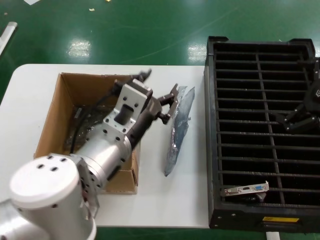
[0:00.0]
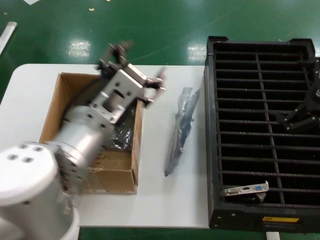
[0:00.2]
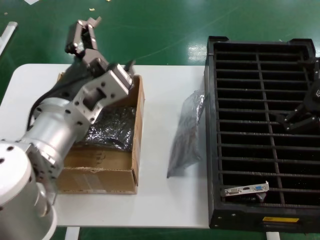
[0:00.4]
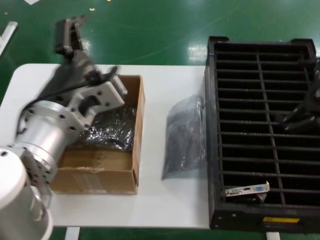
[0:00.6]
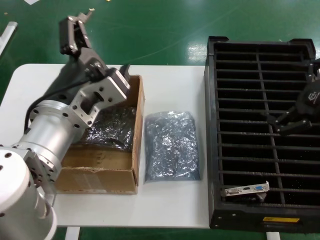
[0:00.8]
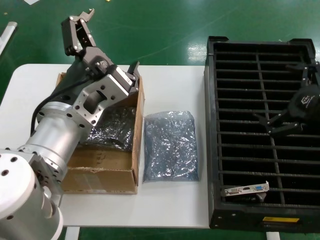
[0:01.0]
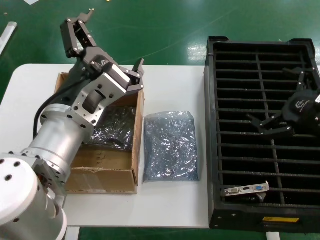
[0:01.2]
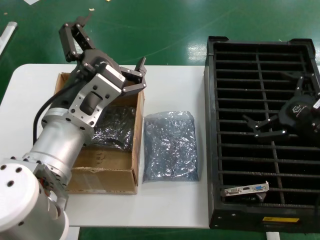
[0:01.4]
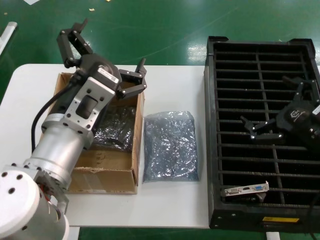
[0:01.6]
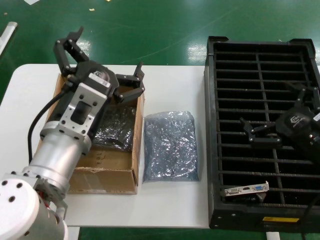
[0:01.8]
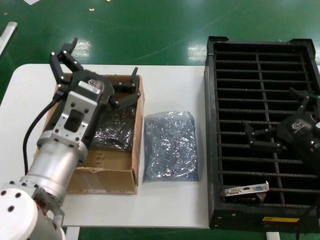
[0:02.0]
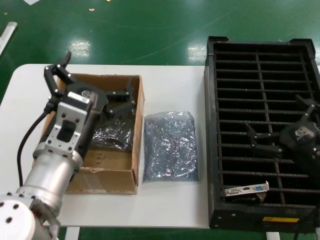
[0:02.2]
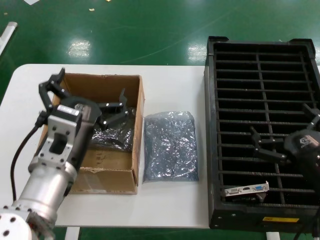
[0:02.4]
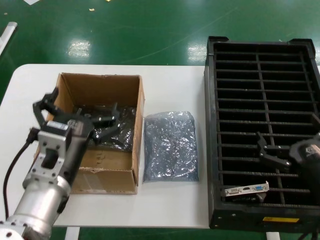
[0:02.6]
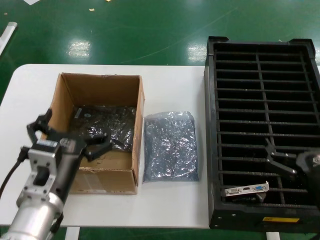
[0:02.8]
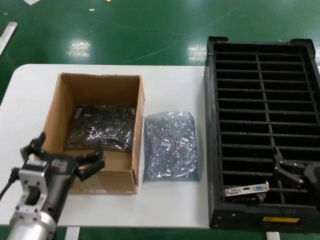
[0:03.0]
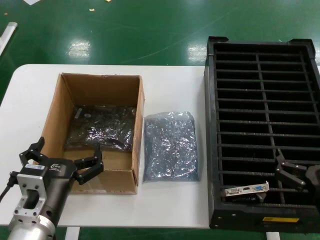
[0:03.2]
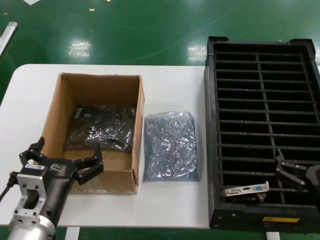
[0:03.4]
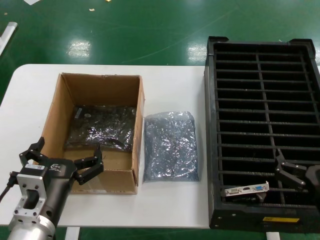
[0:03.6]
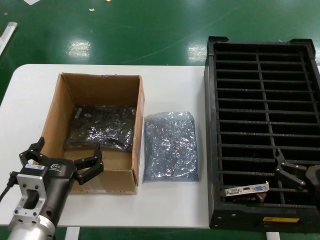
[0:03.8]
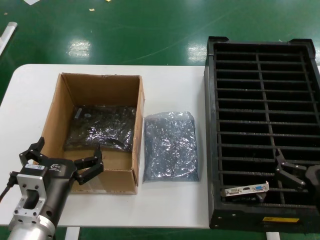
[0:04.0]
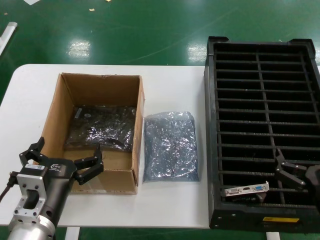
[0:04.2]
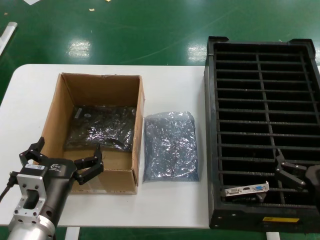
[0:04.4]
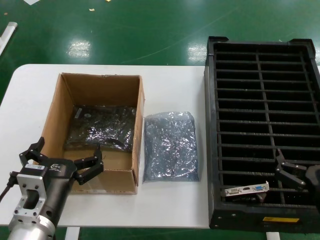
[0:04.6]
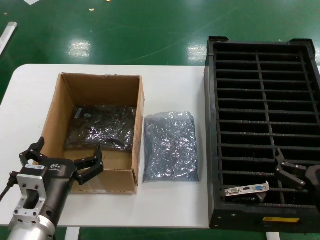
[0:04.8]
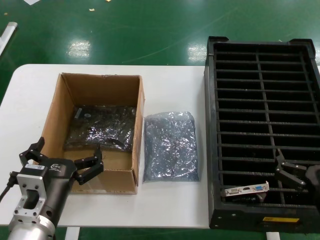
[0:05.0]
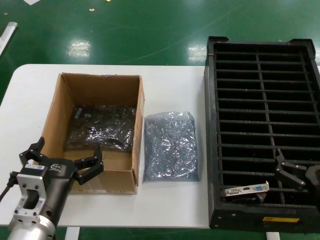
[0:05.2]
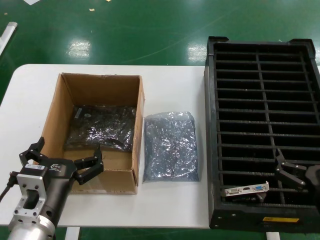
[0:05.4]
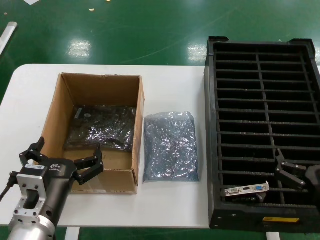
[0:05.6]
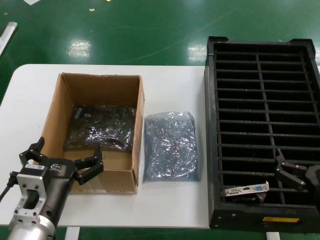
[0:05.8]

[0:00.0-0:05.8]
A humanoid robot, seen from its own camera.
Task of the whole recording: take out graphics card from box remove packaging put into black container.
Step, 0.0 to 2.8 s: Place the down the bag.
0.0 to 1.4 s: The right hand moves downward, approximately 5 cm.
1.4 to 2.8 s: The right hand is displaced downward and backward by about 15 cm, while the left hand travels downward and to the left by approximately 15 cm.
2.8 to 4.4 s: The hands stay close to where they were, moving slightly.
4.4 to 5.8 s: The two hands keep their place.

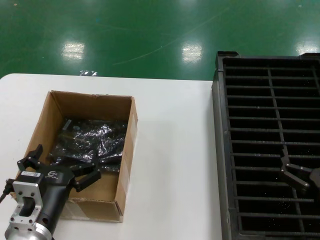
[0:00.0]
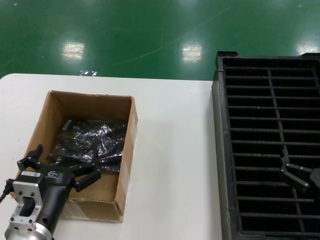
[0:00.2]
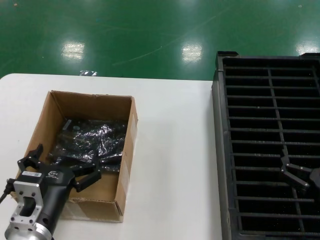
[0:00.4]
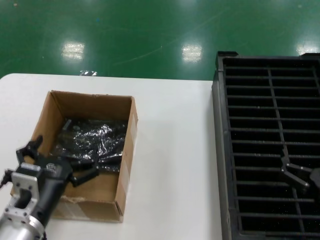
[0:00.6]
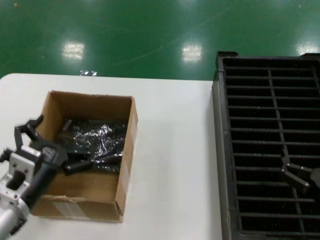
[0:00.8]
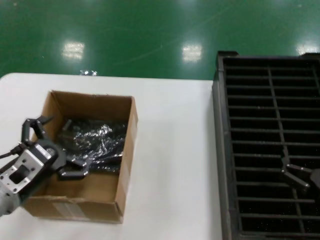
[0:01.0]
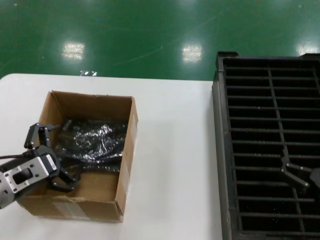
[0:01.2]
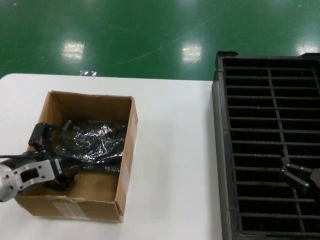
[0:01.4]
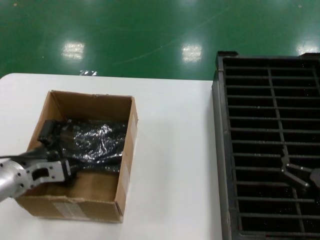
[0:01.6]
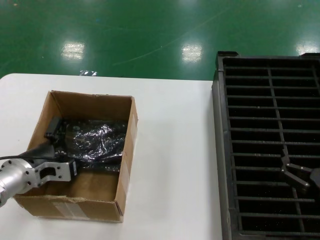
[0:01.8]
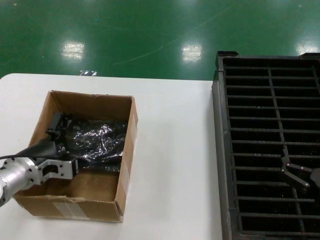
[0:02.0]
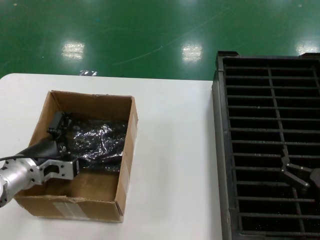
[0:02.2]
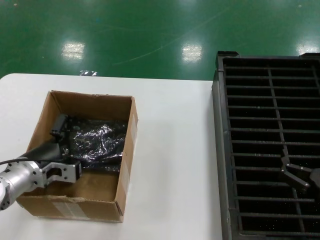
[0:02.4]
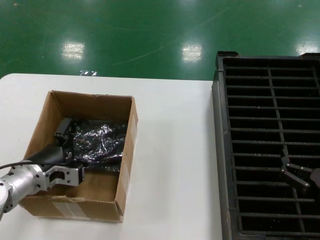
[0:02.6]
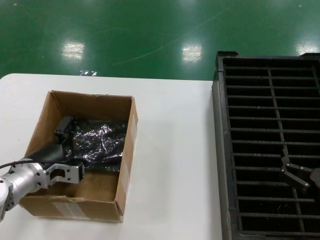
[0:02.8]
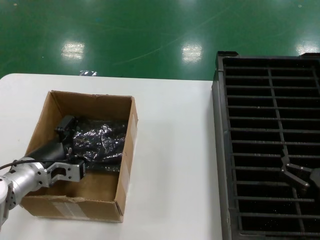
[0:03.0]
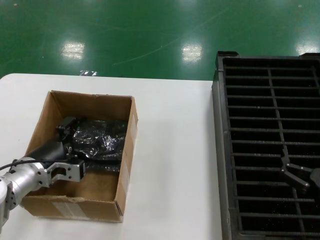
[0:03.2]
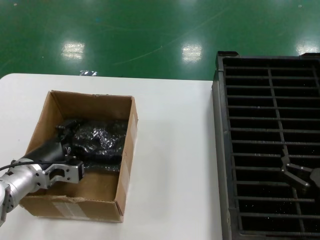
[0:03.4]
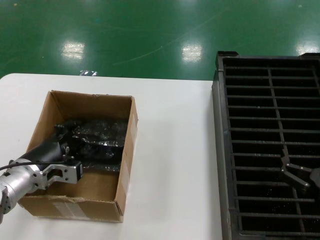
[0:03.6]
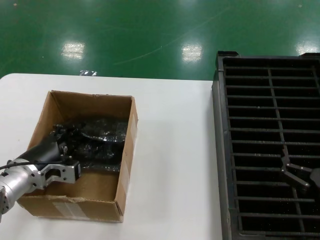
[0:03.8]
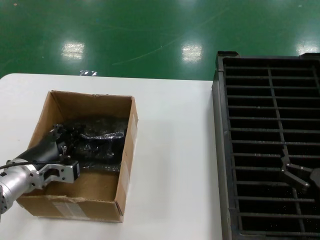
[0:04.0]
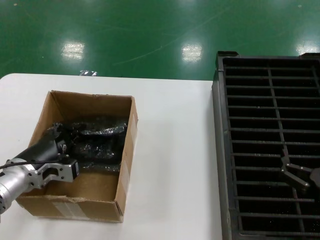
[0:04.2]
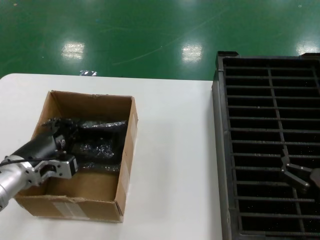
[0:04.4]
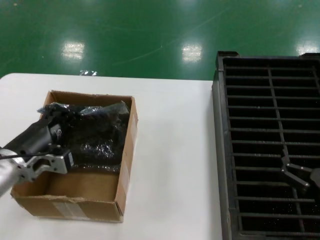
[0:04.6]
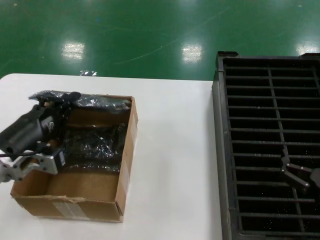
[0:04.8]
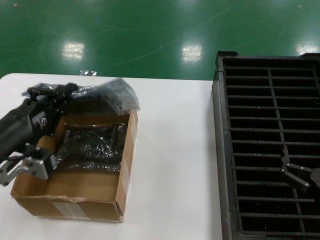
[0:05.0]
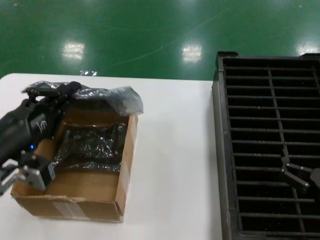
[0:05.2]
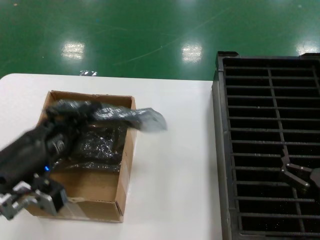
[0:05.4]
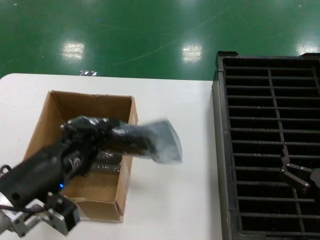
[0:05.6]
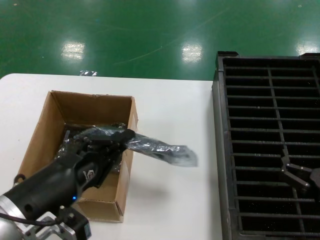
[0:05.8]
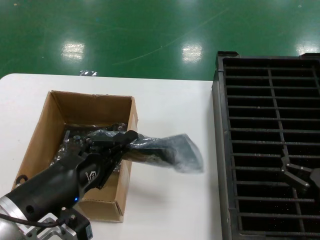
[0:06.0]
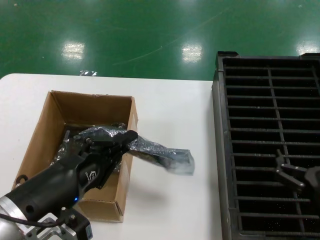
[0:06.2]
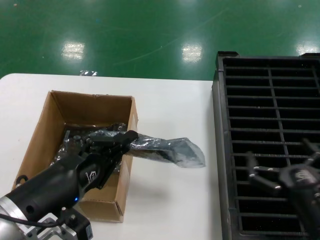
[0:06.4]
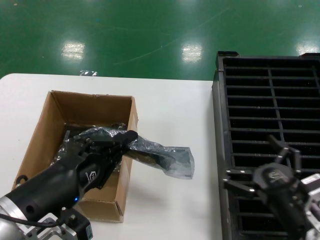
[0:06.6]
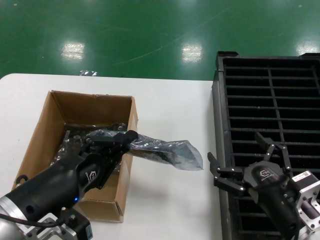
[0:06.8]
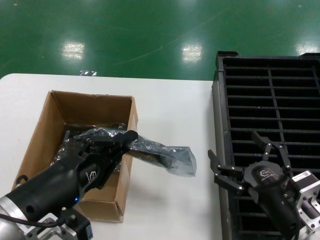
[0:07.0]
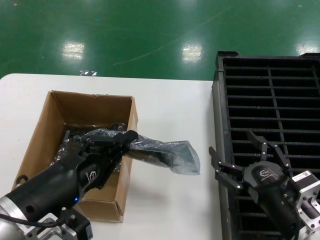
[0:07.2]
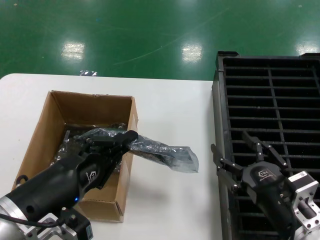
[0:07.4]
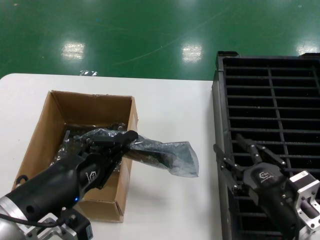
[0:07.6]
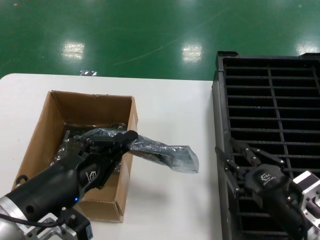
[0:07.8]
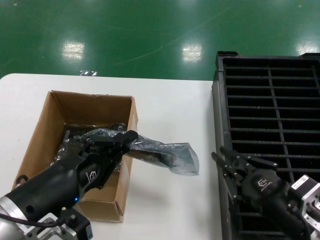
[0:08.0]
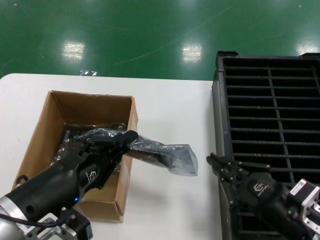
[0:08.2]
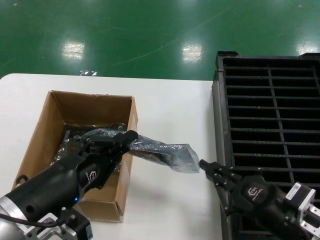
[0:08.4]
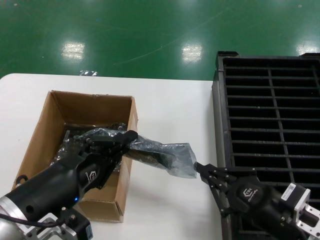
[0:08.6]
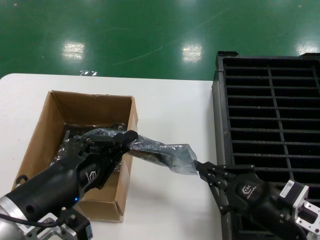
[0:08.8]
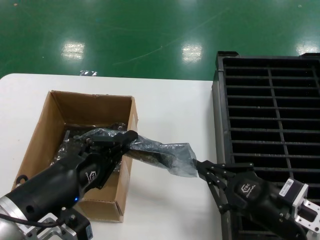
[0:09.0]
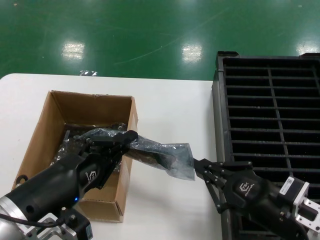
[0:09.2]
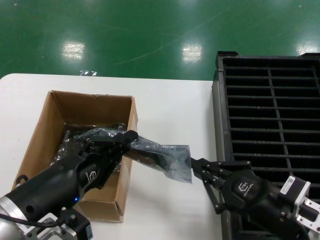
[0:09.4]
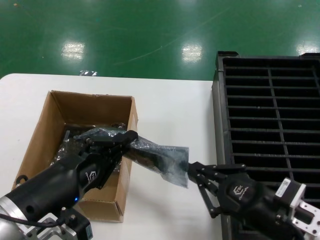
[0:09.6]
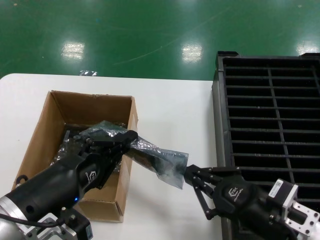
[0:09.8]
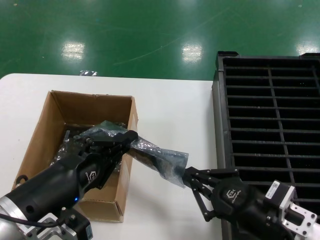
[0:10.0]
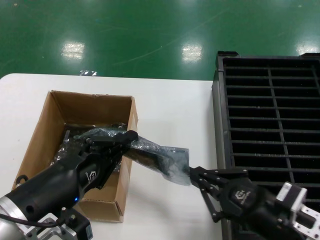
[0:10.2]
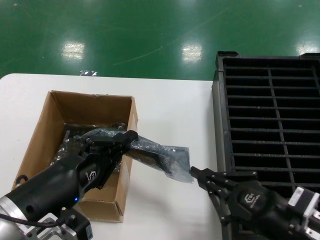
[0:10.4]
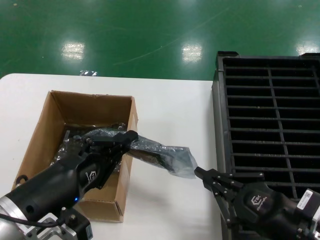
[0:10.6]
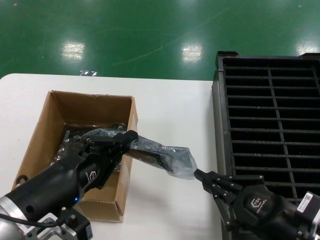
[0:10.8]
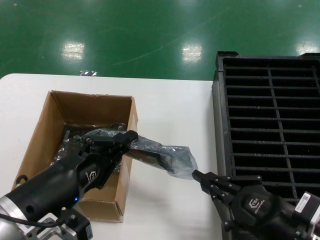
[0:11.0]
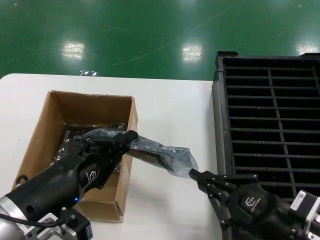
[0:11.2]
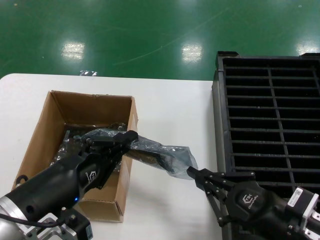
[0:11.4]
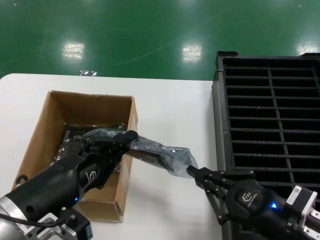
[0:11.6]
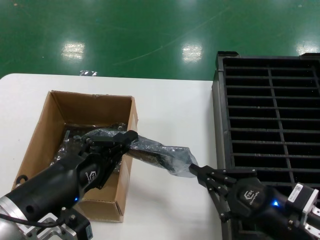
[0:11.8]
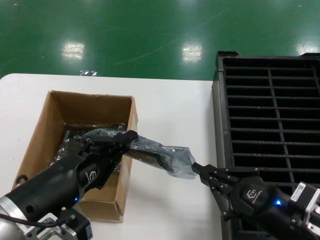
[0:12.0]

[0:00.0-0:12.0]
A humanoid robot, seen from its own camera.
Task of the whole recording: take out graphics card from box remove packaging put into black container.
Step, 0.0 to 4.0 s: Grasp the bag.
Step, 4.2 to 6.2 s: Lift the bag.
0.0 to 1.6 s: The left hand moves forward and to the left, about 15 cm.
1.6 to 4.4 s: The hands move only a little.
4.4 to 6.0 s: The left hand heads backward and to the right, covering roughly 15 cm.
6.0 to 7.6 s: The right hand travels to the left by approximately 5 cm.
9.0 to 12.0 s: The hands stay close to where they were, moving slightly.

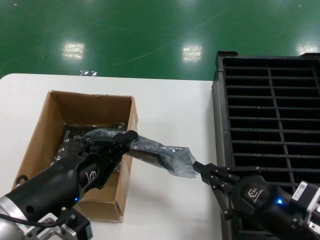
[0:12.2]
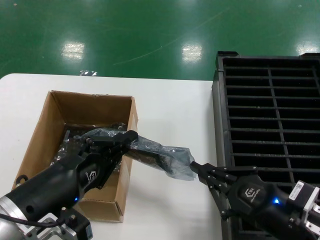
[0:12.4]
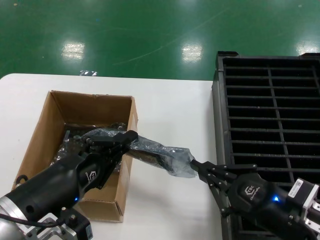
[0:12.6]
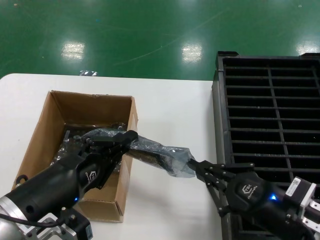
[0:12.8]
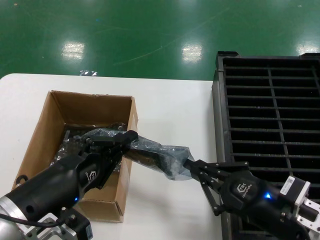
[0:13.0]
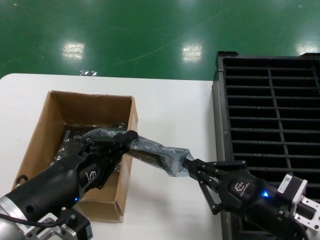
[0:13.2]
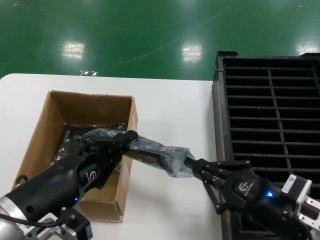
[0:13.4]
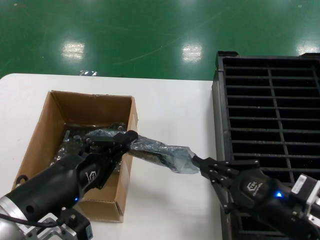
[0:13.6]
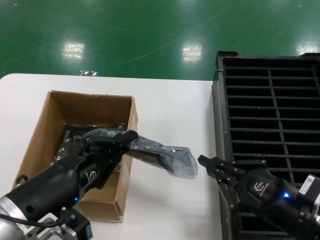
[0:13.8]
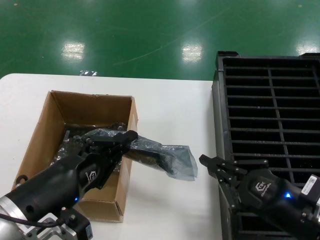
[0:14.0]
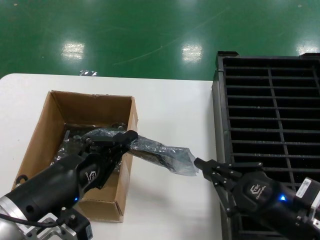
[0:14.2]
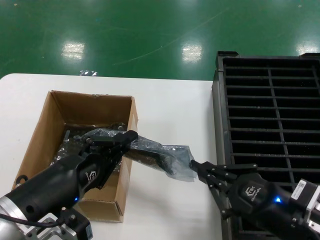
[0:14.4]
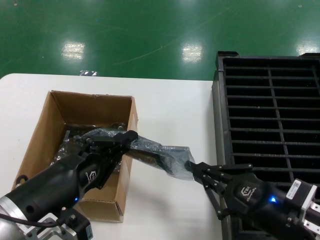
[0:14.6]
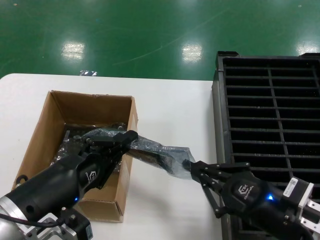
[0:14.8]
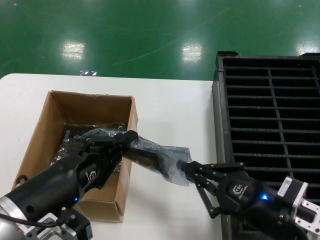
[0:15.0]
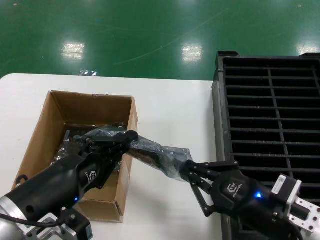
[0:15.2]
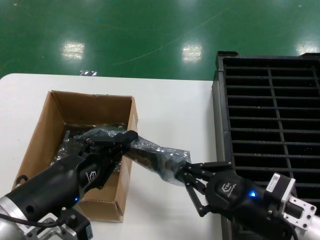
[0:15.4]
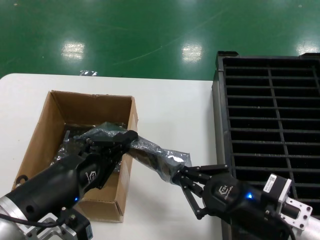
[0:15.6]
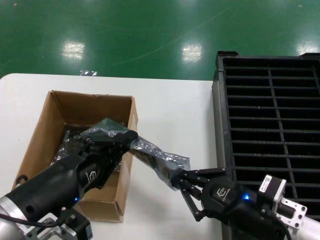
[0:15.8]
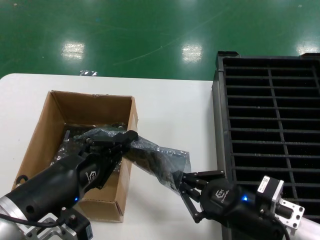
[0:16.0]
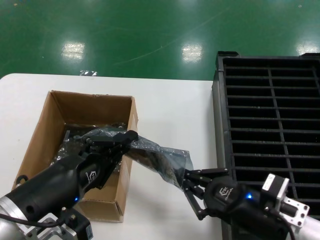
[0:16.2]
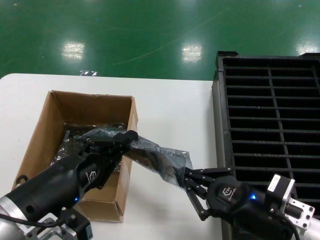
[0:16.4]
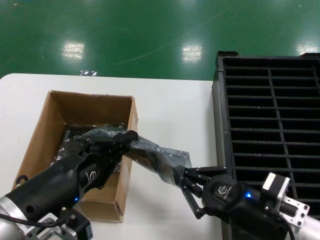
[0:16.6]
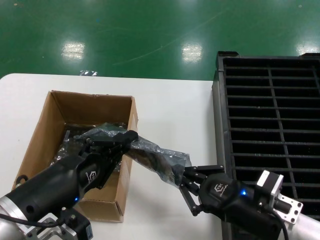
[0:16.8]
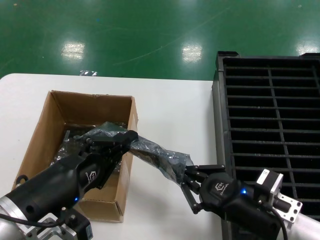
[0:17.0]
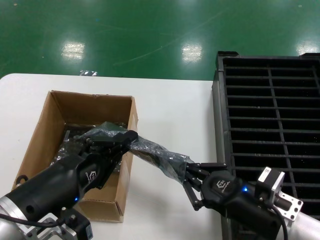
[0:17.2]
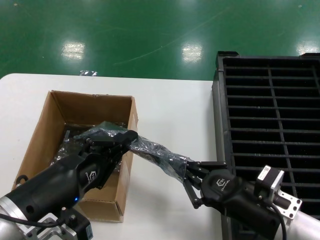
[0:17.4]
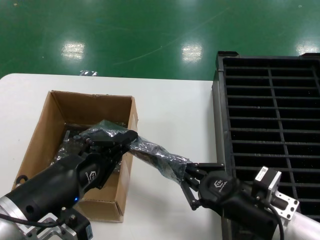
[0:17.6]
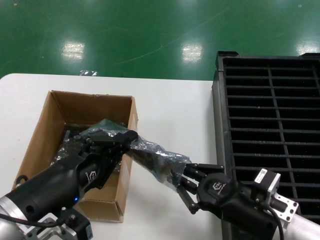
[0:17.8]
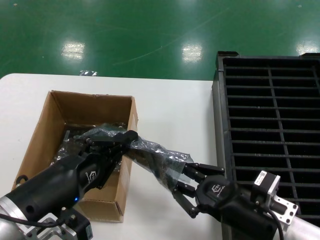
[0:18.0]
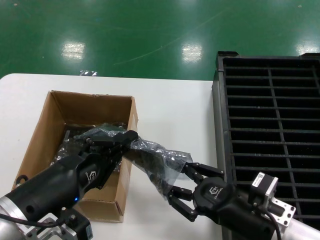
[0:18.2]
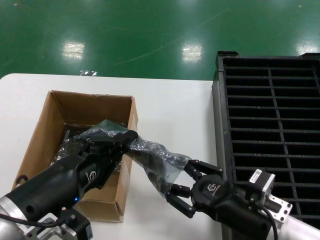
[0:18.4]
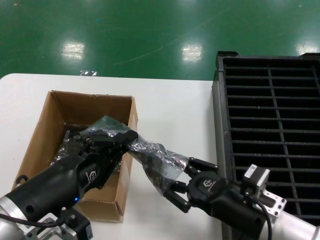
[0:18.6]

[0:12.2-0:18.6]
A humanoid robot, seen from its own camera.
Task of the whole recording: take out graphics card from box remove packaging put into black container.
12.2 to 17.0 s: The hands make only small movements.
17.0 to 18.6 s: There are only small adjustments of the hands.
